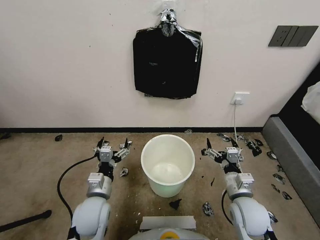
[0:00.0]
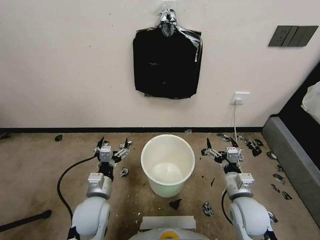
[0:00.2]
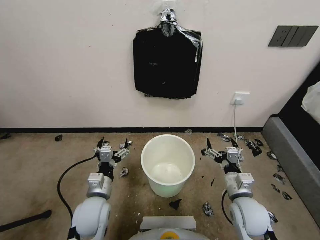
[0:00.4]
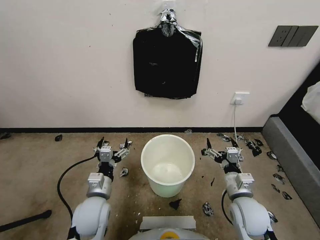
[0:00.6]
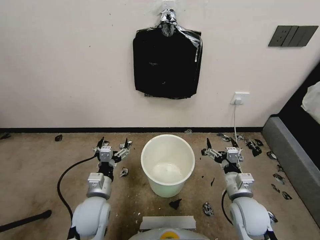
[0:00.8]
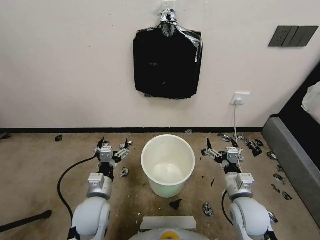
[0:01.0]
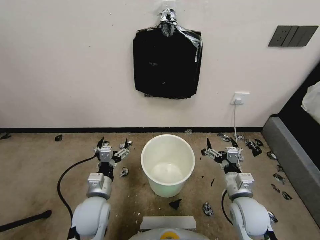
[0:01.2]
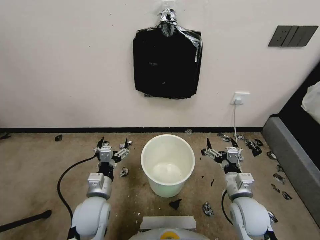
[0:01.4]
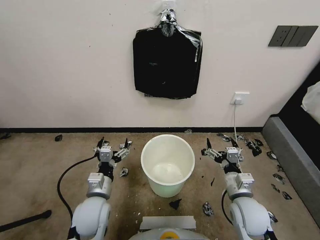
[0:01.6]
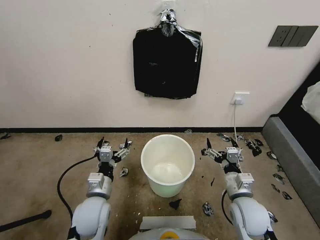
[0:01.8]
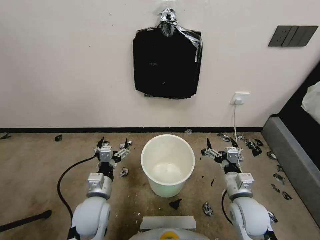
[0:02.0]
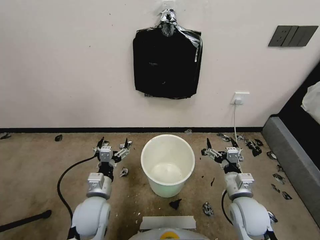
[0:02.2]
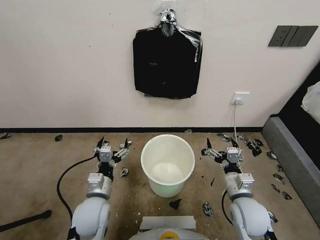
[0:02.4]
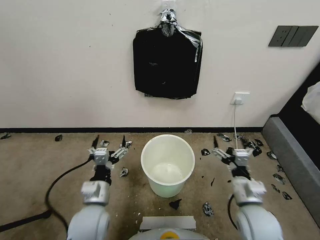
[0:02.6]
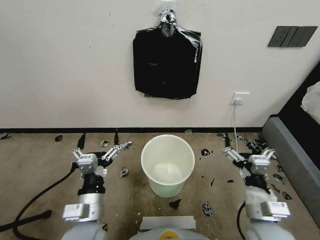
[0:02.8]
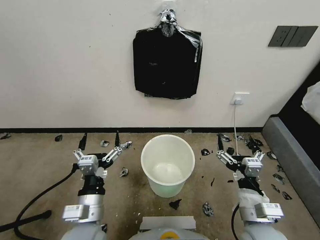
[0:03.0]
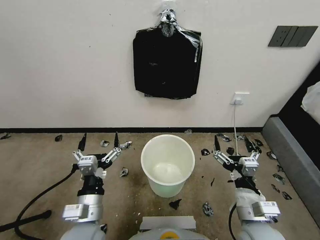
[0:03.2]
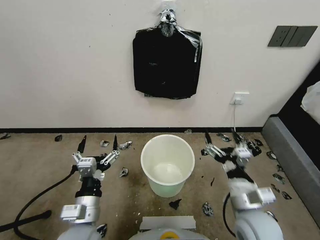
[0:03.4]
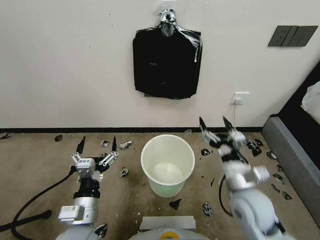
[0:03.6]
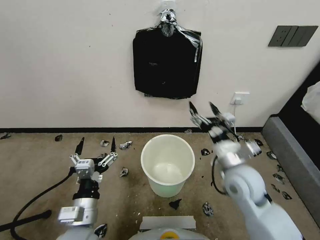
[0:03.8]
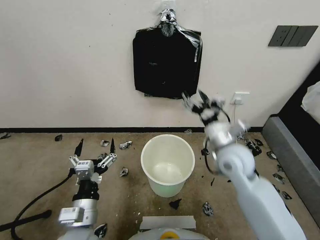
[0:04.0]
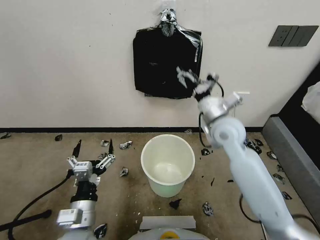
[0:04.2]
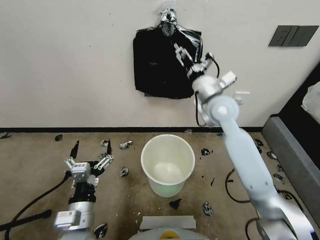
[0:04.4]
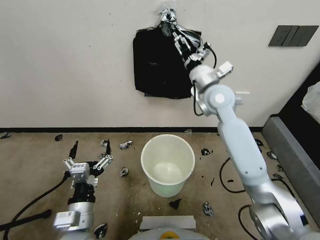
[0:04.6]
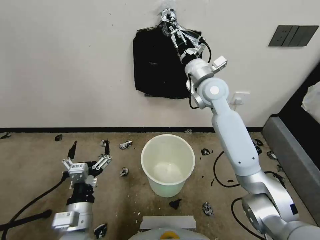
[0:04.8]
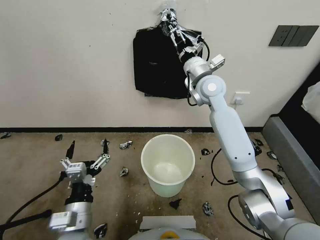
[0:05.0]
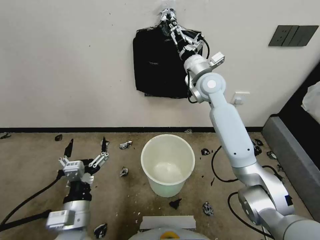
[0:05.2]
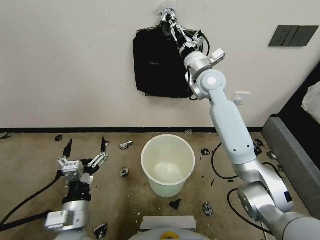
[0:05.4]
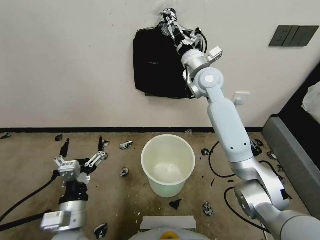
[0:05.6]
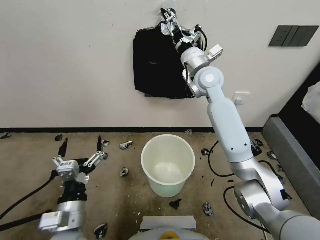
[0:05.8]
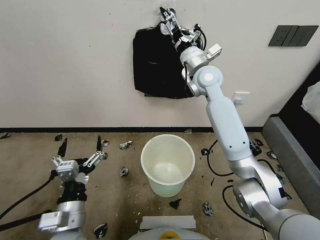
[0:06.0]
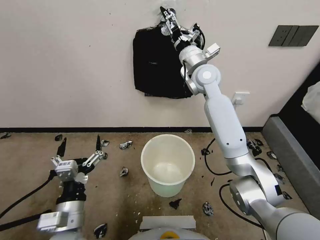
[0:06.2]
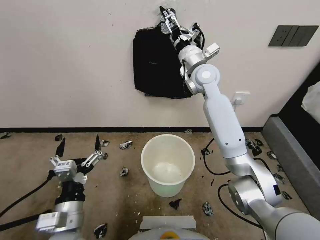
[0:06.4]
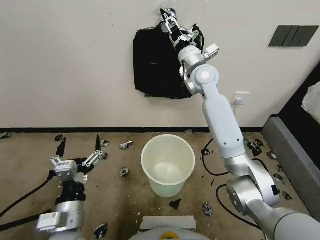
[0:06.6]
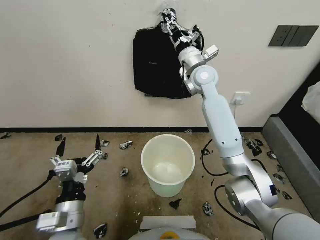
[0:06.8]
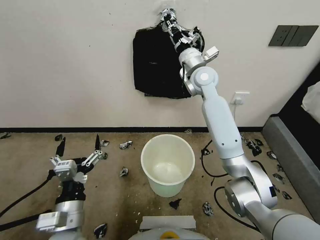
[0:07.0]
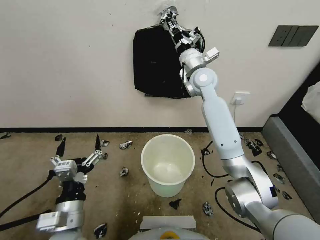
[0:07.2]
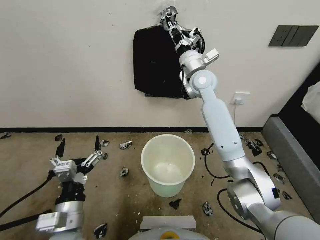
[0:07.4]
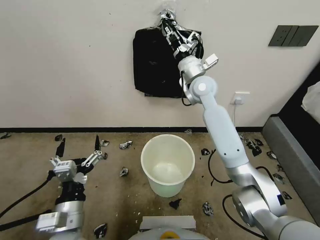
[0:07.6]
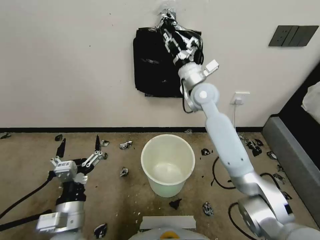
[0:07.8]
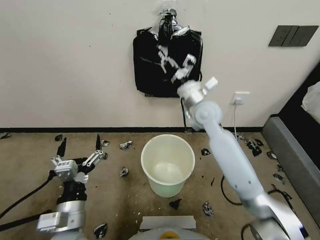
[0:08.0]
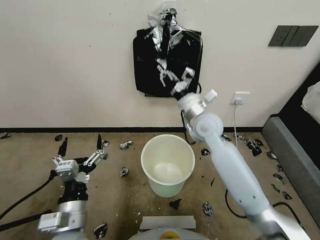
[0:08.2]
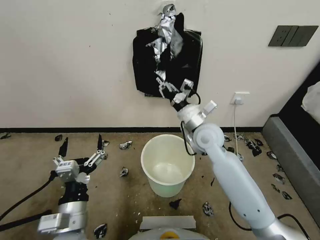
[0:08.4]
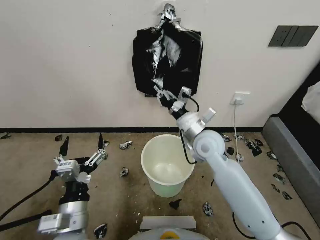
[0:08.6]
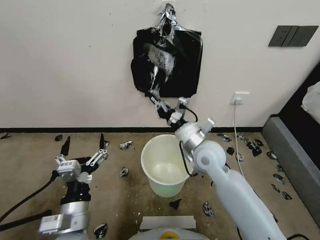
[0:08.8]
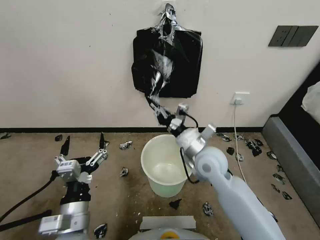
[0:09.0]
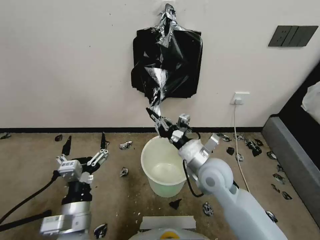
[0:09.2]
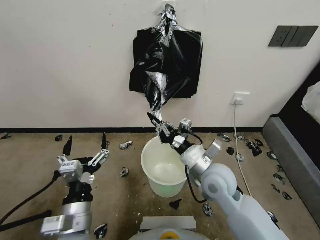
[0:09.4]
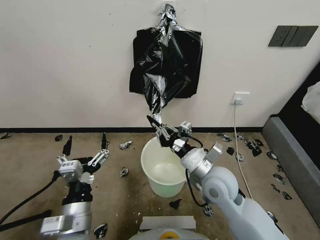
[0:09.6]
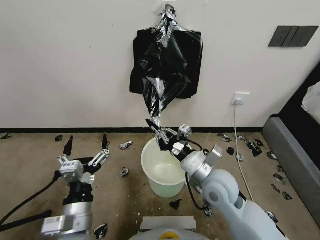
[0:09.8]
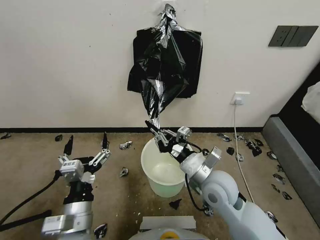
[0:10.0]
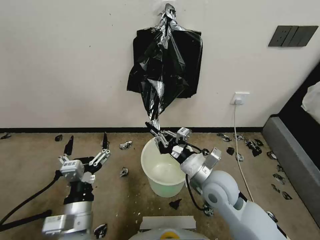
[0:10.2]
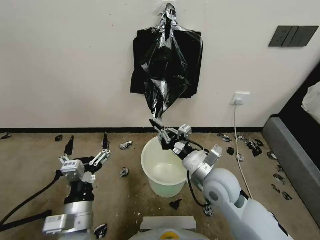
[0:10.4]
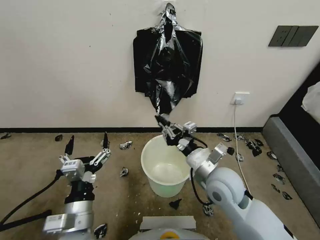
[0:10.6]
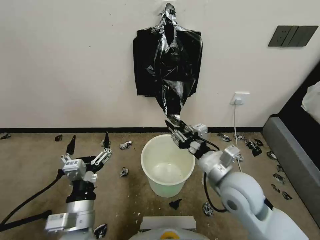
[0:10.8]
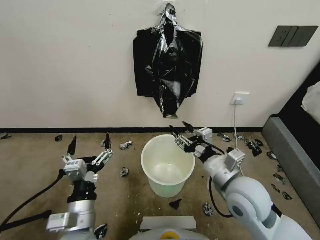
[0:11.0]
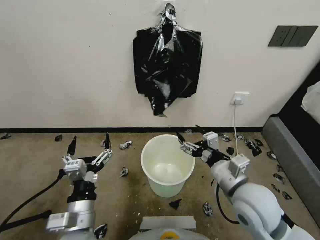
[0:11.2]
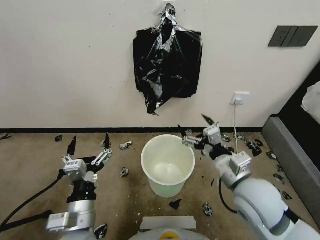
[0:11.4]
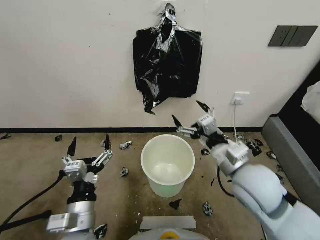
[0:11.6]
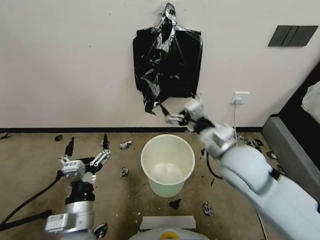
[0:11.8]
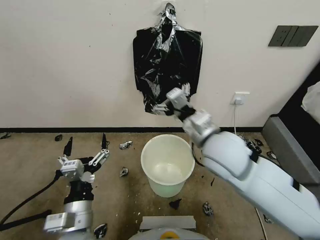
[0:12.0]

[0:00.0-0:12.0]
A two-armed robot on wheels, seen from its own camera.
Task of the whole recording: Place a trash bag onto the trash bin.
0:01.6 to 0:03.0: The grippers both shift backward and upward by about 10 cm.
0:03.0 to 0:04.4: The right gripper travels forward and upward by some 35 cm.
0:04.4 to 0:06.0: The right gripper heads forward, covering approximately 10 cm.
0:06.0 to 0:07.6: The right gripper closes up.
0:07.6 to 0:09.0: The right gripper moves backward and downward, some 25 cm.
0:09.0 to 0:10.4: The right gripper moves backward, about 5 cm.
0:10.4 to 0:12.0: The right gripper travels upward by about 15 cm, and opens up.

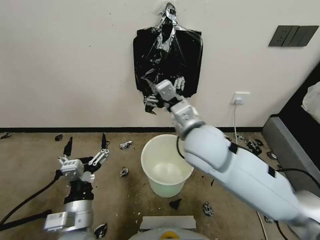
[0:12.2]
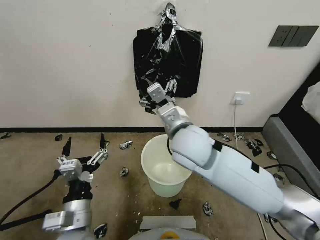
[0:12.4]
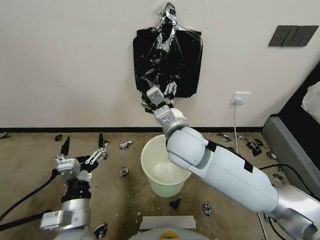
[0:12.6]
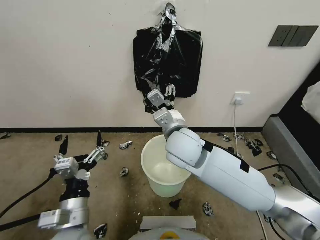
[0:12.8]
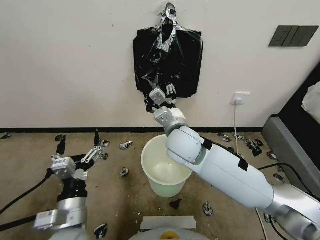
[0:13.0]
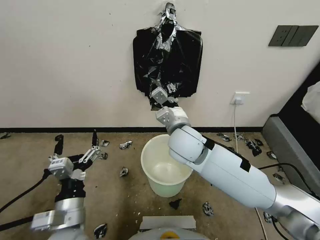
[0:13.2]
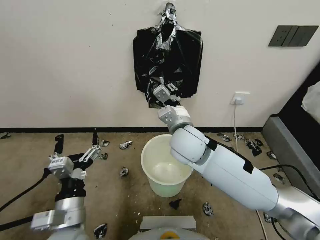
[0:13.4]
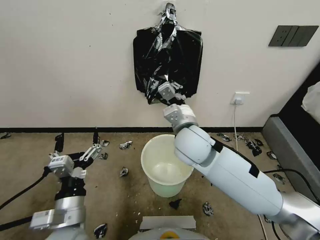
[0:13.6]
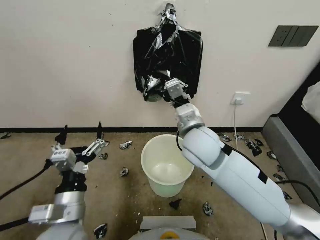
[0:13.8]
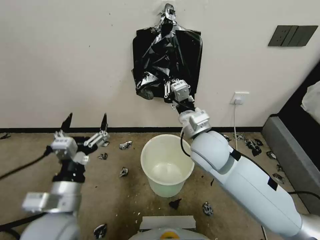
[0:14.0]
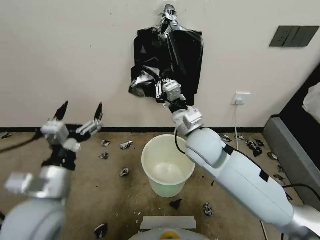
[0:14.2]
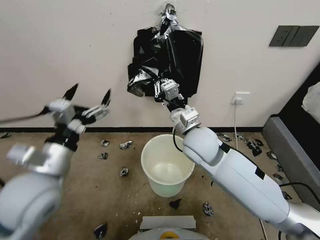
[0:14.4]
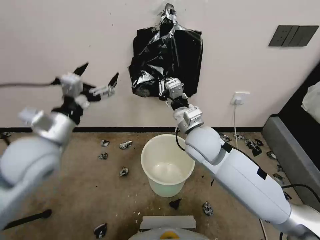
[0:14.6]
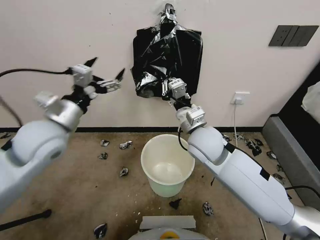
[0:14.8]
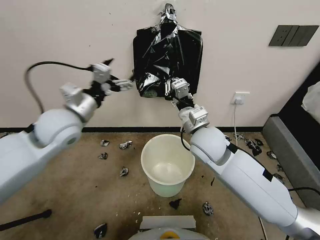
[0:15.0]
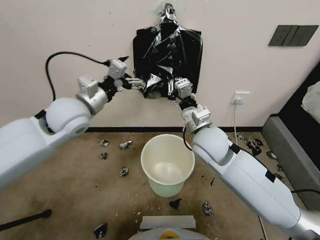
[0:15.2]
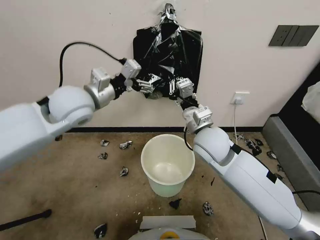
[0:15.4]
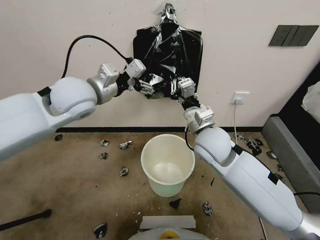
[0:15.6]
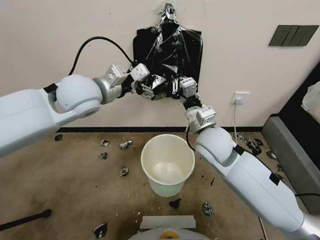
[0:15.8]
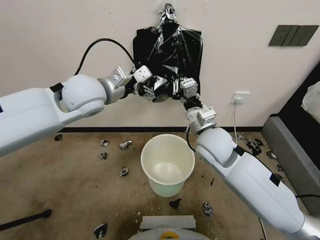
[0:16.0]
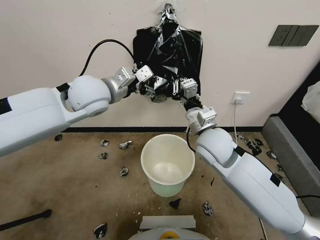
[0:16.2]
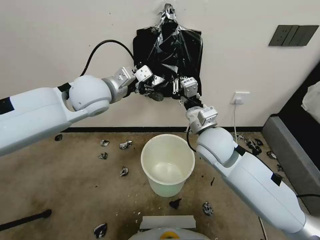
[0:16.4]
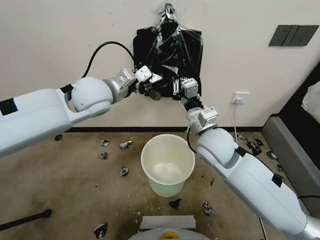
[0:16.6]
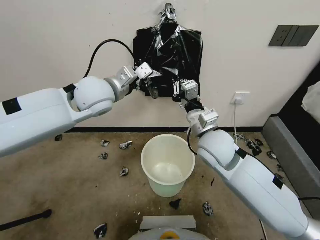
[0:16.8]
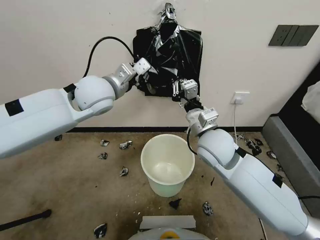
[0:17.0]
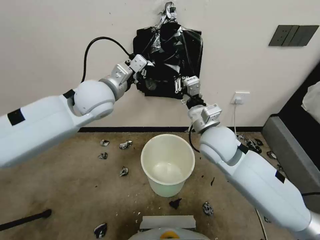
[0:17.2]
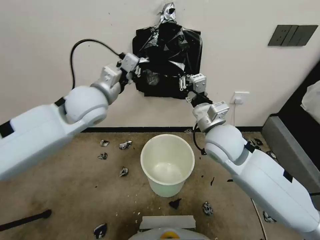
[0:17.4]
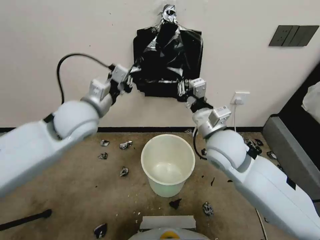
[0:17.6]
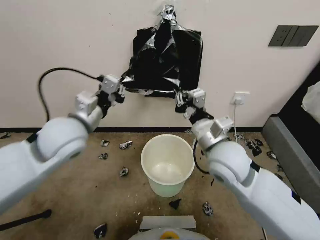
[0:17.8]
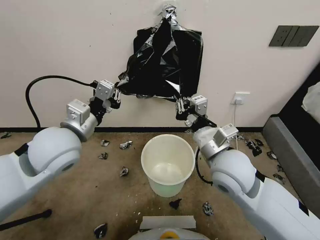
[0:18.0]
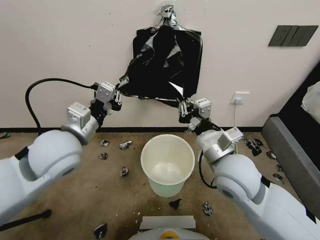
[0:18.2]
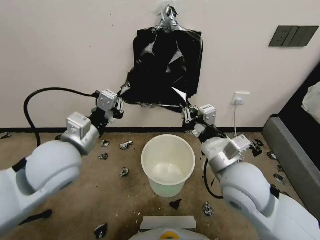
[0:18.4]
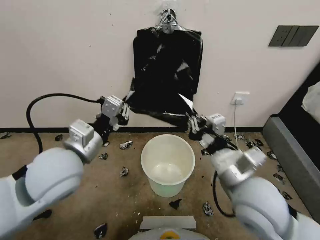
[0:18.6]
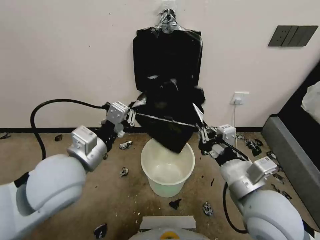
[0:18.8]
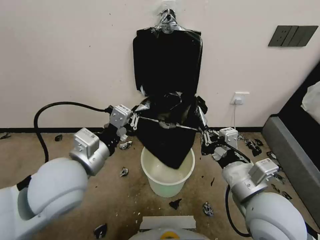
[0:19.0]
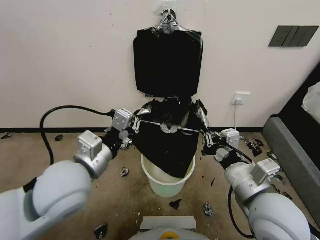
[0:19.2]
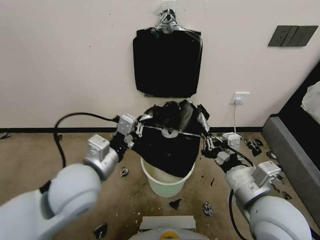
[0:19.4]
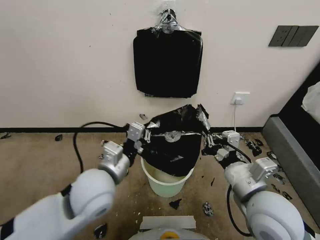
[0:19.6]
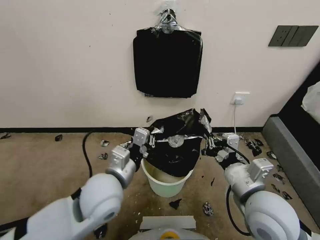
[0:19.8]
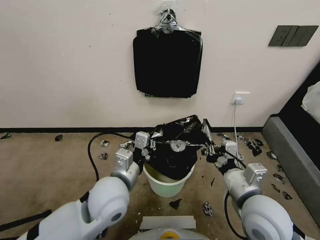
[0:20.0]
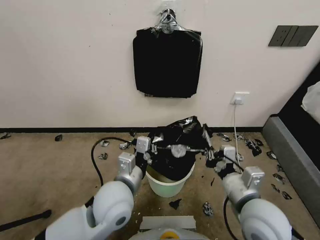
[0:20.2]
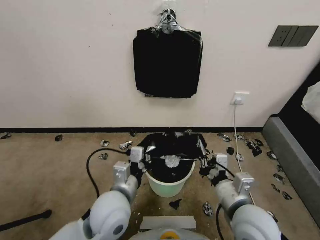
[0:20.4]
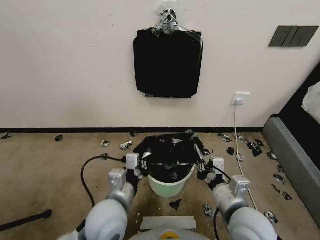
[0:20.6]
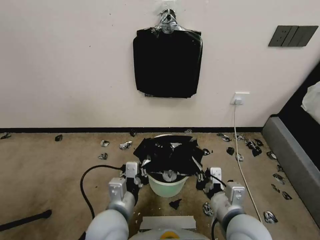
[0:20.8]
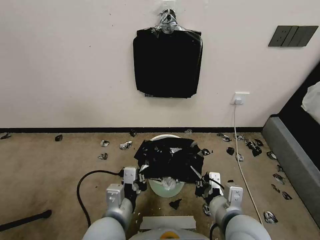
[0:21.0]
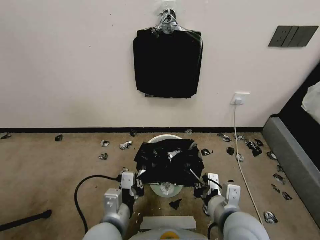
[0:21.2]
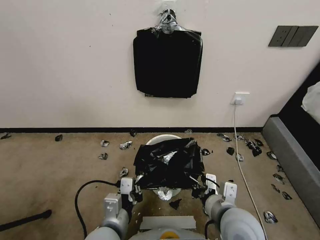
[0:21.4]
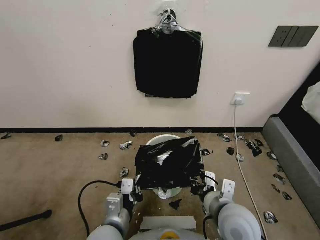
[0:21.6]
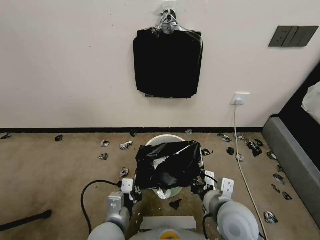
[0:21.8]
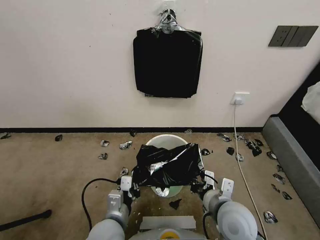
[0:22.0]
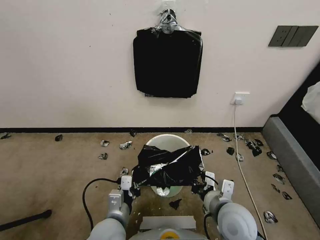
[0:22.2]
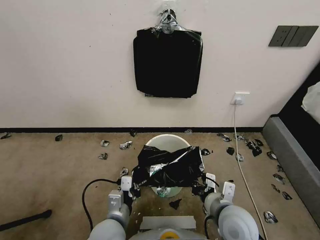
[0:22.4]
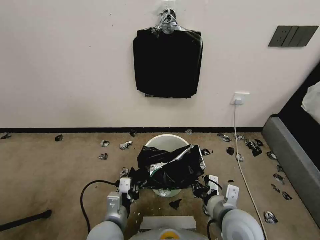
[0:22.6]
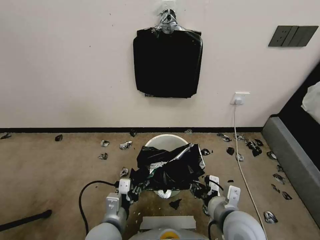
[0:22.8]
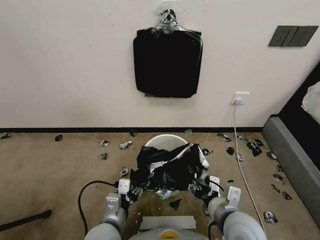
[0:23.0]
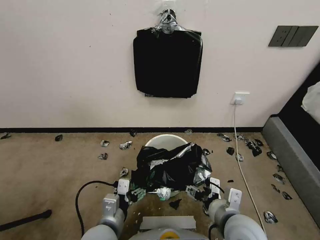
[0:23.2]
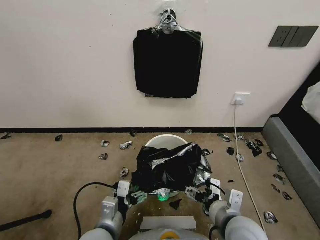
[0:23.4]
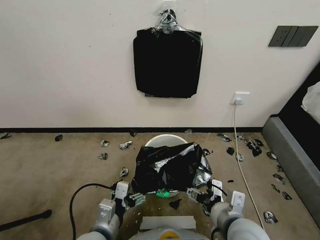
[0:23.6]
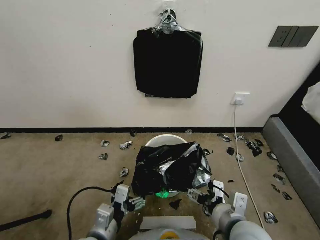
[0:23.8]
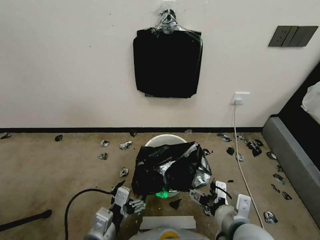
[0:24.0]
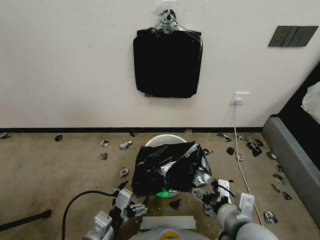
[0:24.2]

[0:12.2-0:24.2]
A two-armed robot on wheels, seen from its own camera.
Task of the whole recording: Place a trash bag onto the trash bin.
0:12.2 to 0:13.8: The right gripper closes up.
0:13.8 to 0:15.2: The left gripper travels forward and upward by about 30 cm.
0:15.2 to 0:16.6: The left gripper is displaced to the right by roughly 5 cm, and closes up.
0:16.6 to 0:18.2: The right gripper shifts some 10 cm backward, while the left gripper goes roughly 15 cm backward, downward and to the left, and closes.
0:18.2 to 0:19.8: The left gripper shifts about 15 cm downward, to the right and backward; the right gripper goes approximately 10 cm backward and to the right.
0:19.8 to 0:21.2: The right gripper is displaced downward by roughly 5 cm. The left gripper goes about 10 cm backward and downward.
0:21.2 to 0:22.6: The left gripper moves downward, about 5 cm; the right gripper ends up some 5 cm from where it was.
0:22.6 to 0:24.2: The left gripper shifts by approximately 5 cm, and opens its fingers. The right gripper ends up some 5 cm from where it was, and opens.
